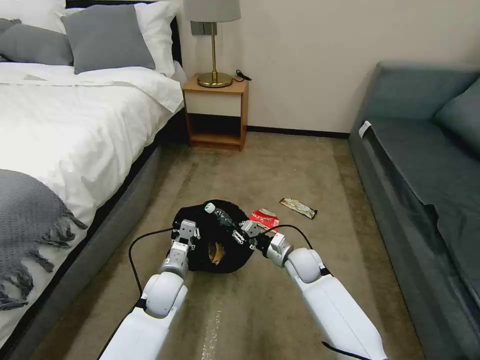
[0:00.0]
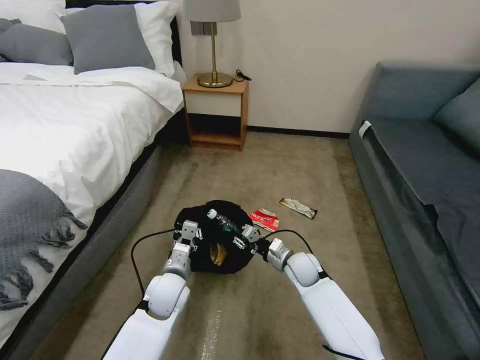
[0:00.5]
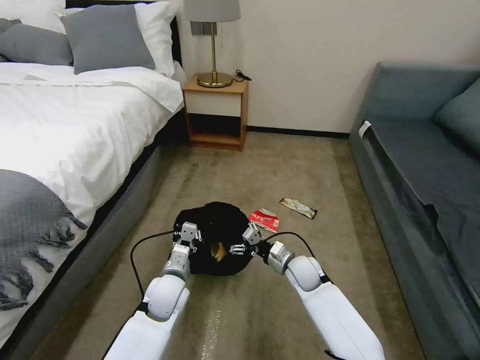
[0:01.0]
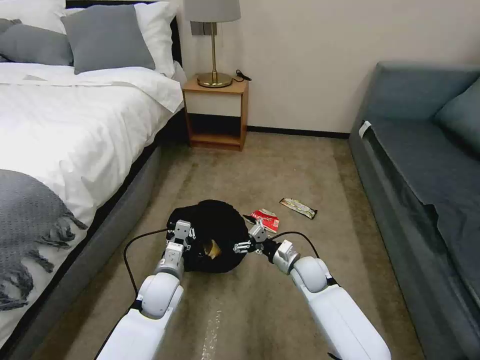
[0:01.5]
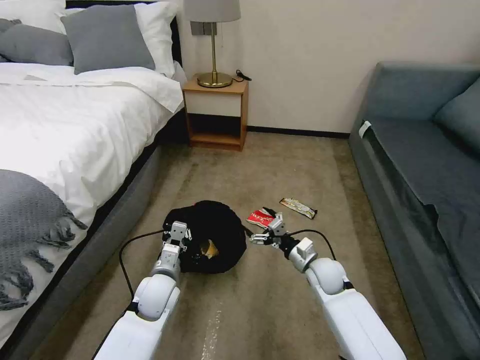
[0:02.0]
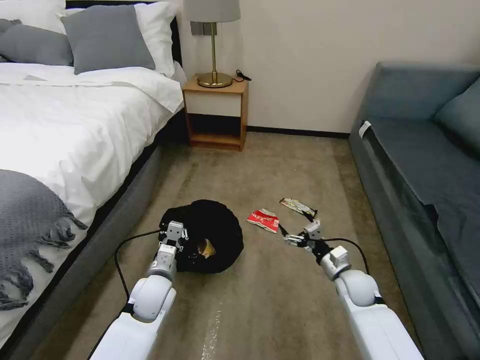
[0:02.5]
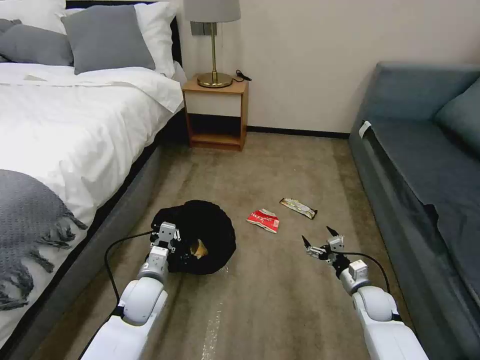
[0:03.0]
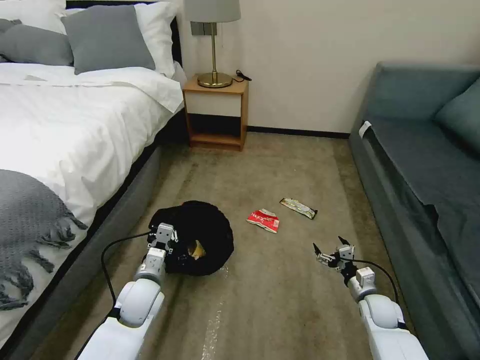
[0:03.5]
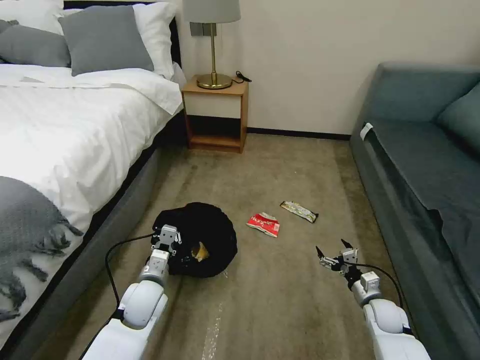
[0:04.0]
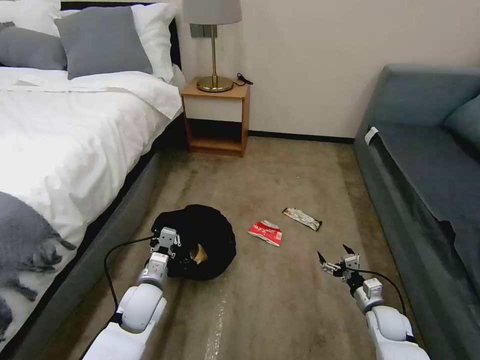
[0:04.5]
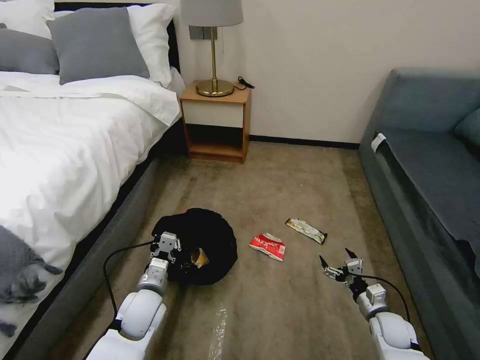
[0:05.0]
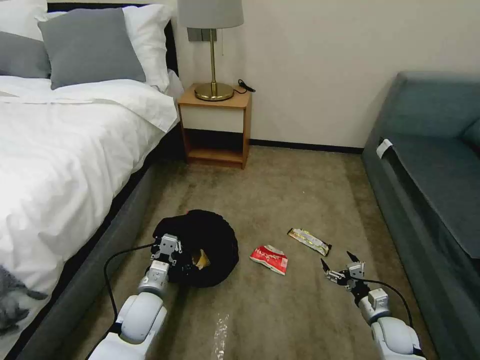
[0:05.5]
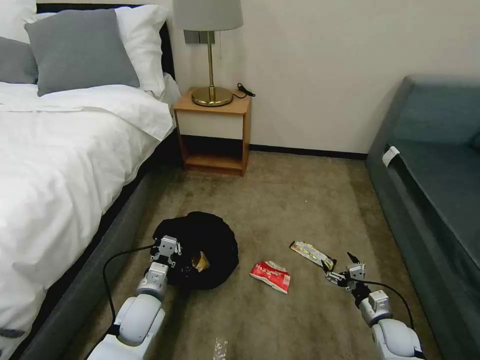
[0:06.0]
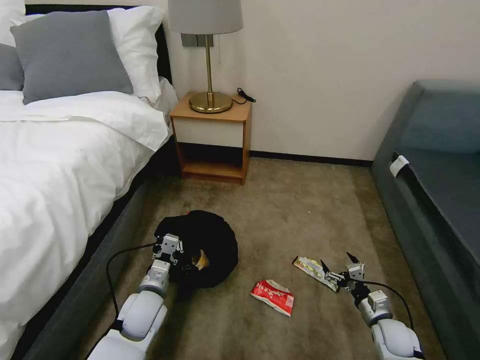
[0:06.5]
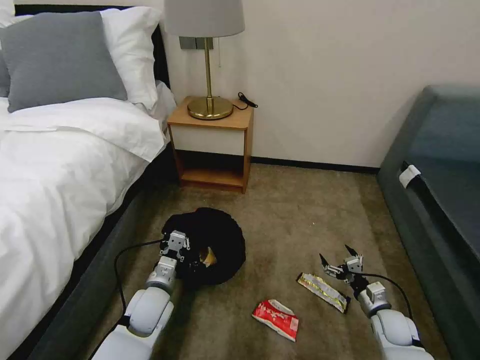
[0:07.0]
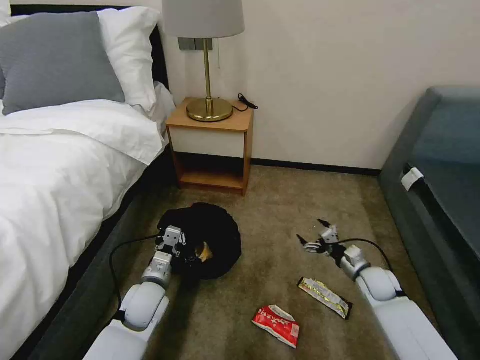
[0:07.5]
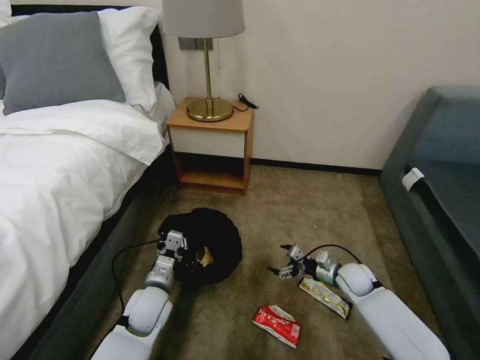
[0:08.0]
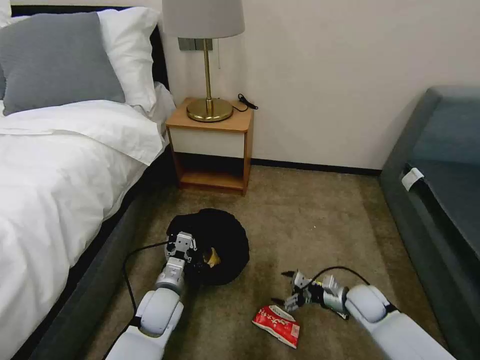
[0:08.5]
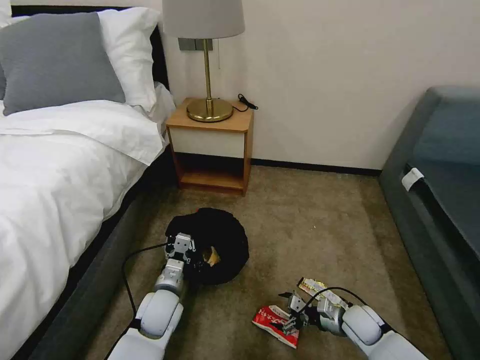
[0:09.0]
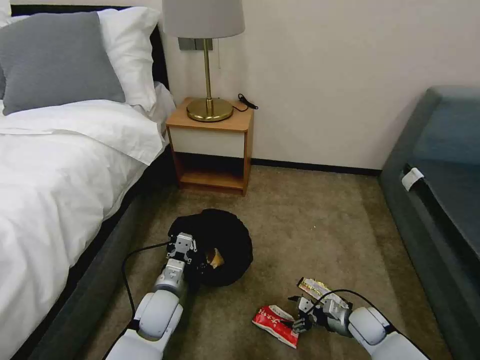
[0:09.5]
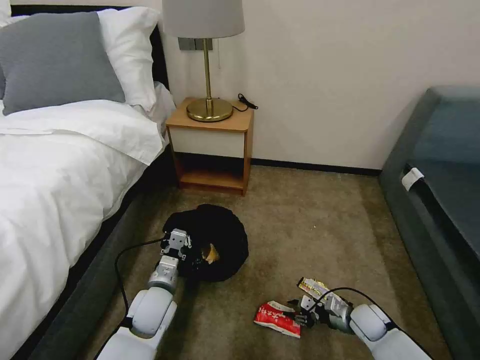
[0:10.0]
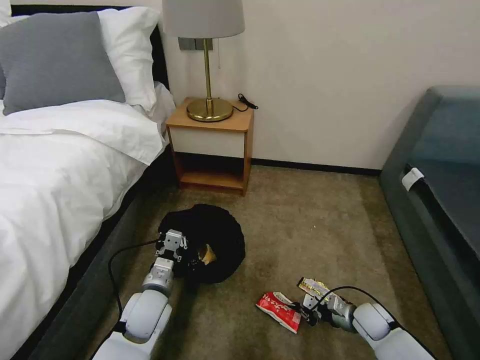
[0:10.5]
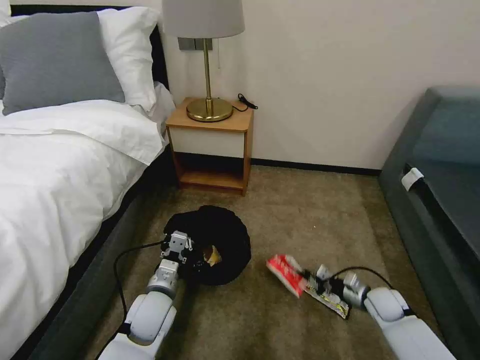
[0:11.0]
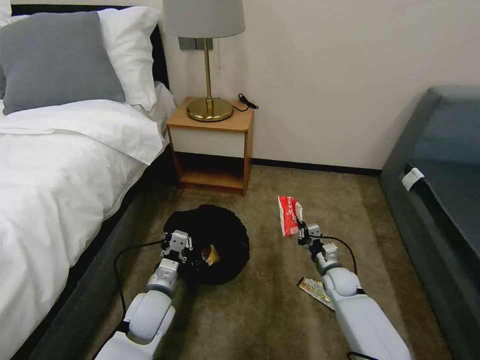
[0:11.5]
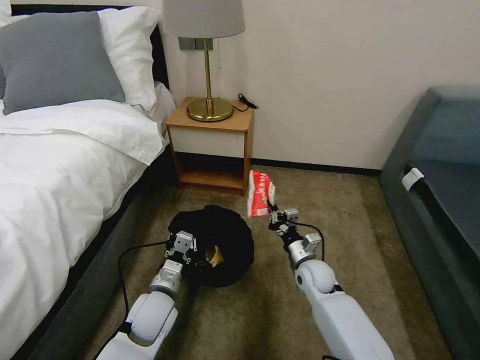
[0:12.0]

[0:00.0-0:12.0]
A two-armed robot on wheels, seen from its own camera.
Task of the whole recording: Pick up the trash bin, then pick up the garbage on the floor and place it into the trash bin.
0:00.0 to 0:02.0: The right gripper moves to the right, about 5 cm, and opens its fingers.
0:02.0 to 0:04.0: The right gripper moves to the right, downward and backward, roughly 20 cm.
0:04.0 to 0:06.0: The right gripper shifts by about 5 cm.
0:06.0 to 0:08.0: The right gripper shifts roughly 15 cm forward and to the left.
0:08.0 to 0:10.0: The right gripper travels backward and downward by some 10 cm, and closes up.
0:10.0 to 0:12.0: The right gripper heads to the left, upward and forward, covering approximately 20 cm, and closes up.

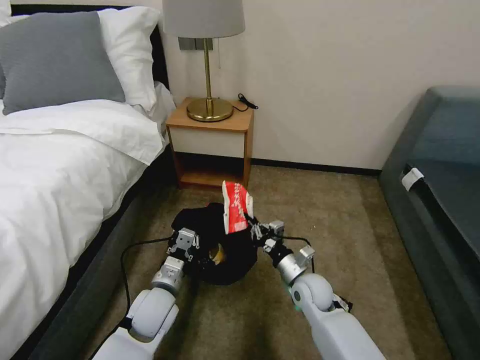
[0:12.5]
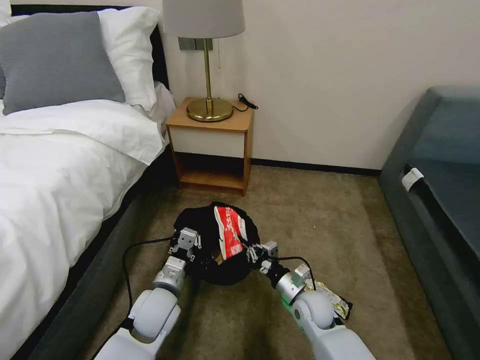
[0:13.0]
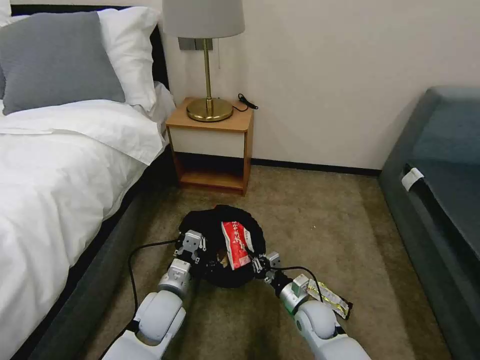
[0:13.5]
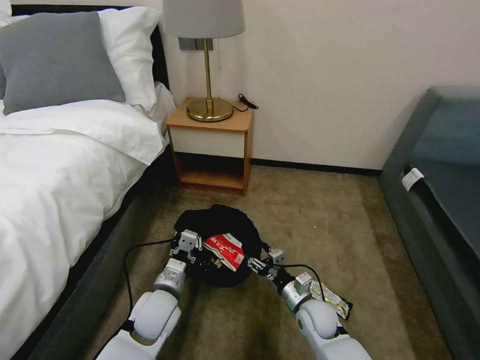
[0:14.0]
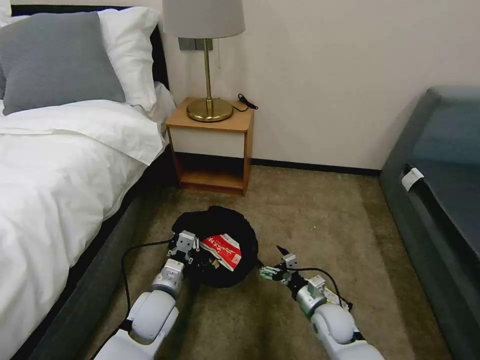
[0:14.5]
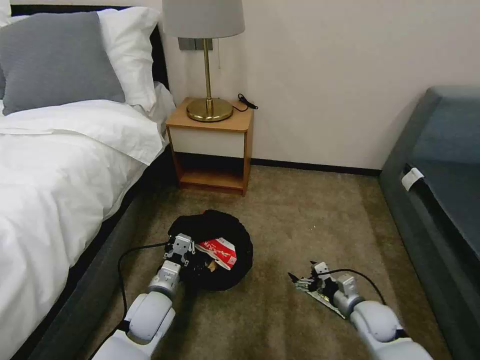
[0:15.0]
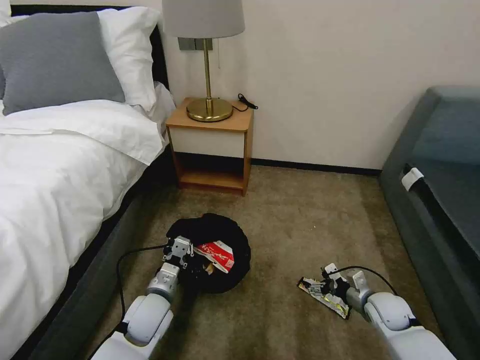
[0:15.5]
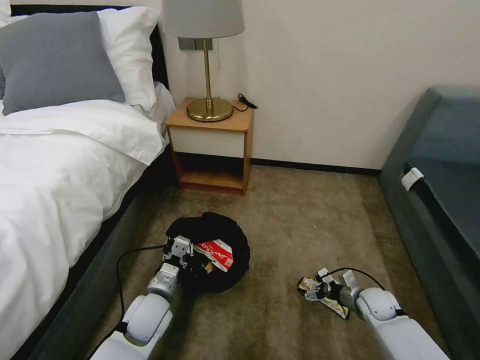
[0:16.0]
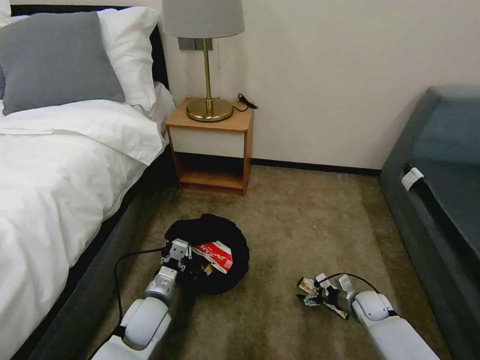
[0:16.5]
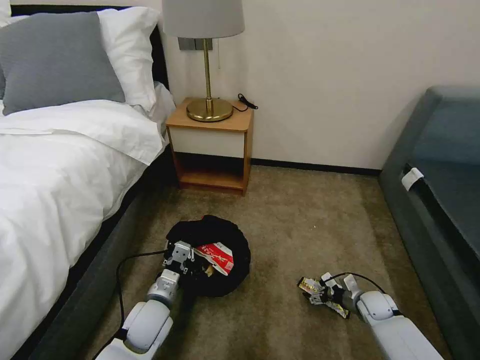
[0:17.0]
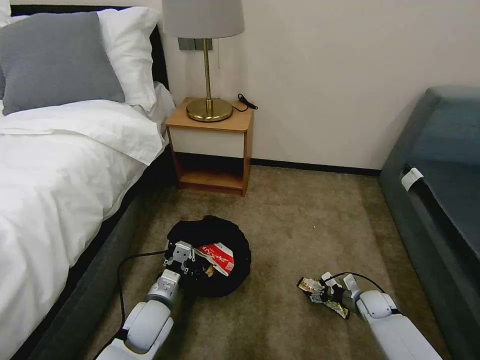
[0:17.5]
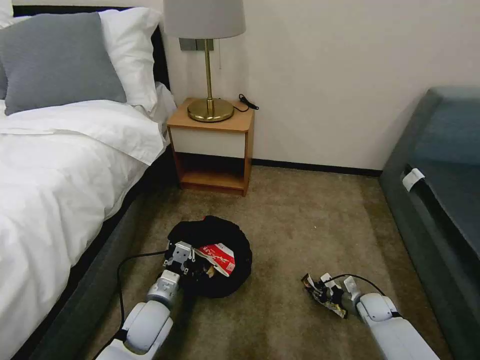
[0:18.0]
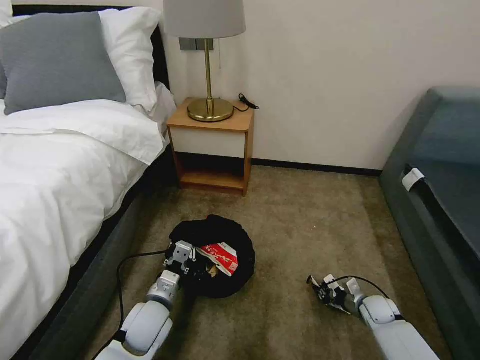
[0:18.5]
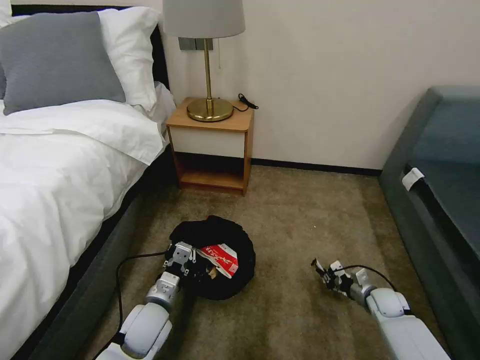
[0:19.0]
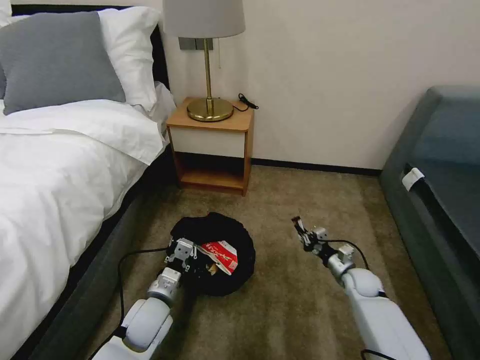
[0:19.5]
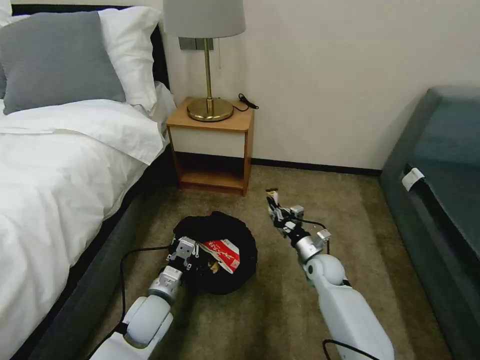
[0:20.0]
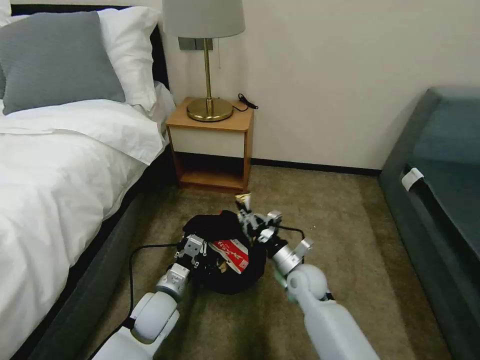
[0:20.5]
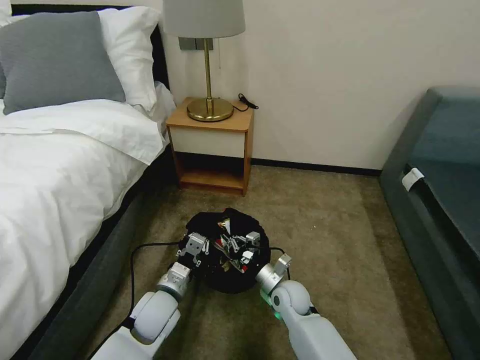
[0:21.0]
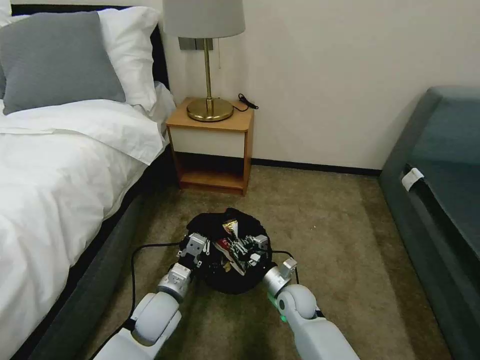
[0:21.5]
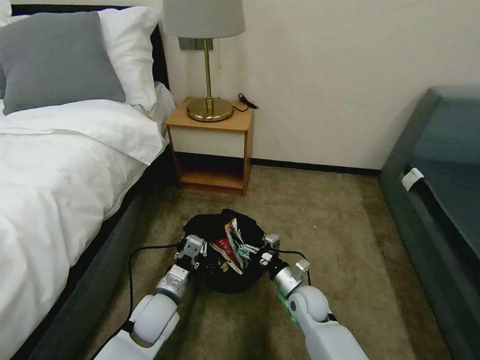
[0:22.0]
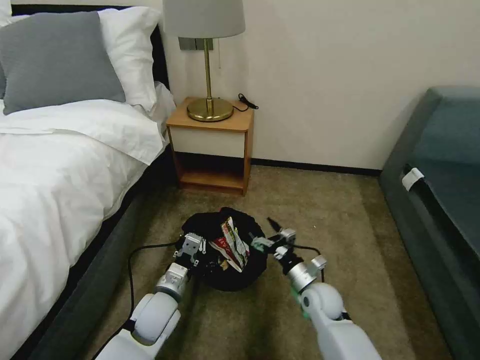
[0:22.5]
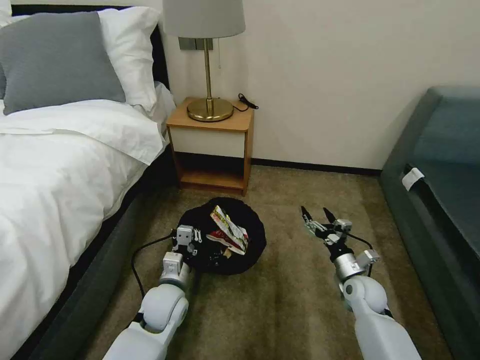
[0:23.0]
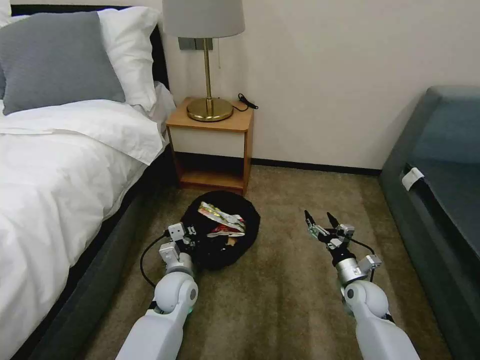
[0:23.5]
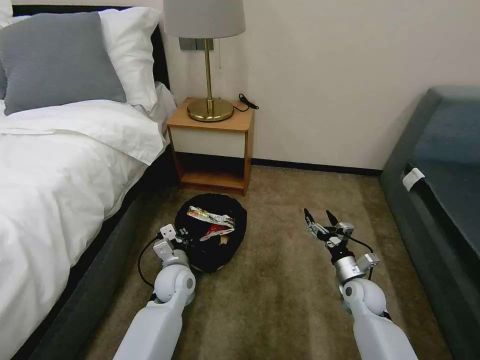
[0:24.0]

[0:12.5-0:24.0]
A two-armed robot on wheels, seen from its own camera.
Task of the whole recording: Pick up the trash bin, then pick up the garbage on the floor and place it into the trash bin.
0:12.5 to 0:14.5: The right gripper heads backward, downward and to the right, covering roughly 10 cm, and opens its fingers.
0:14.5 to 0:16.5: The right gripper travels to the right and downward by about 15 cm.
0:16.5 to 0:18.5: The right gripper closes its fingers.
0:18.5 to 0:20.0: The right gripper moves to the left, upward and forward, roughly 20 cm.
0:20.0 to 0:22.0: The right gripper is displaced backward and to the left by approximately 10 cm, and opens up.
0:22.0 to 0:24.0: The right gripper travels to the right by approximately 15 cm. Meanwhile the left gripper travels forward by roughly 10 cm.

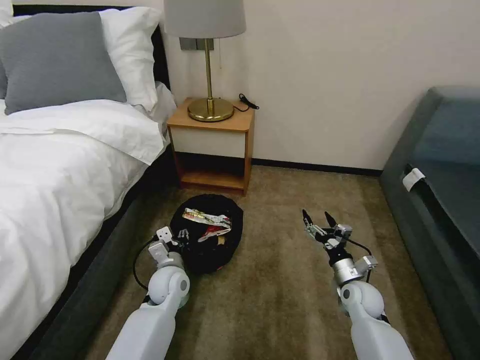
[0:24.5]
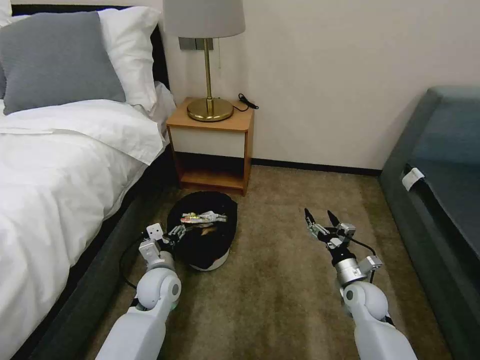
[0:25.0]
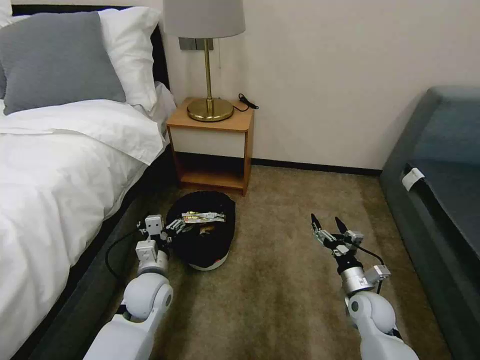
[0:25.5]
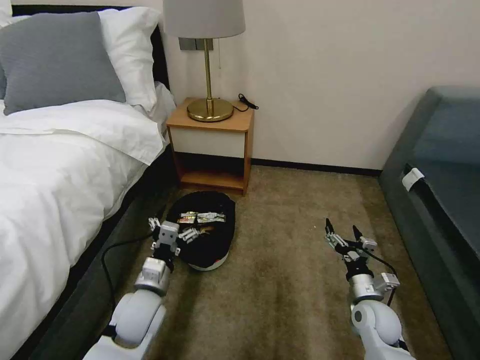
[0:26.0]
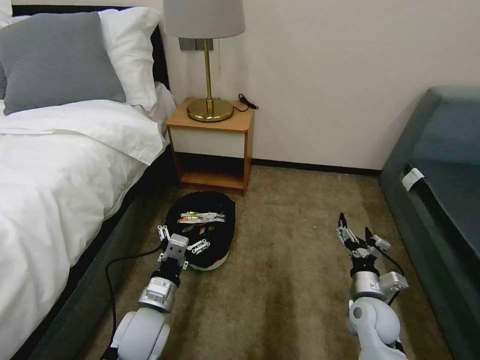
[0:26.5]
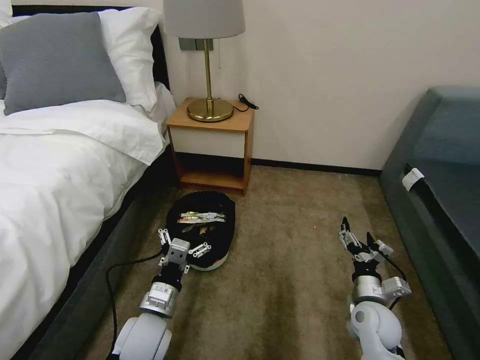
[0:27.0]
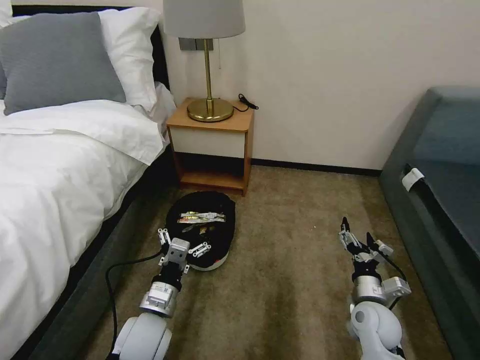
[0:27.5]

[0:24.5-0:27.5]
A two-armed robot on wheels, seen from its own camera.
Task of the whole recording: Pick up the trash bin, then pick up the garbage on the floor and place it into the trash bin.
0:24.5 to 0:26.0: The left gripper shifts some 10 cm backward and upward, and opens up, while the right gripper travels backward by approximately 5 cm.
0:26.0 to 0:27.5: The left gripper ends up some 5 cm from where it was.
